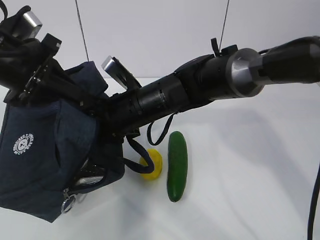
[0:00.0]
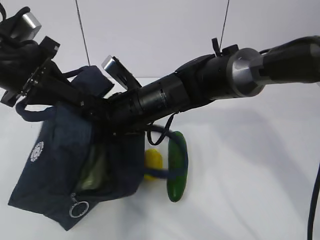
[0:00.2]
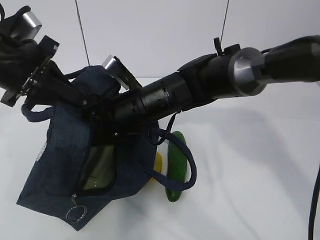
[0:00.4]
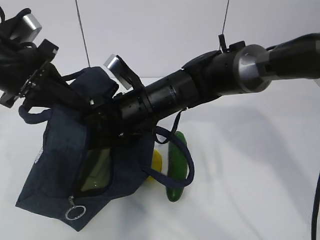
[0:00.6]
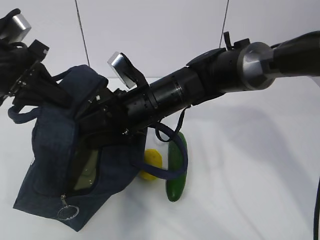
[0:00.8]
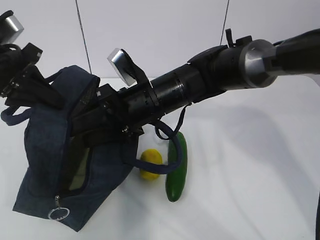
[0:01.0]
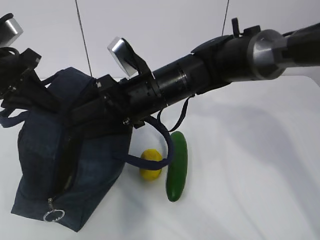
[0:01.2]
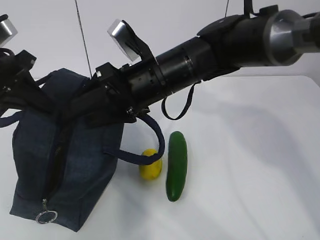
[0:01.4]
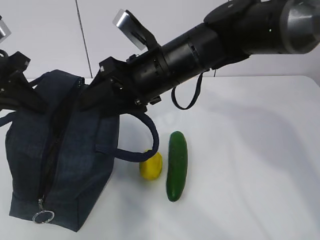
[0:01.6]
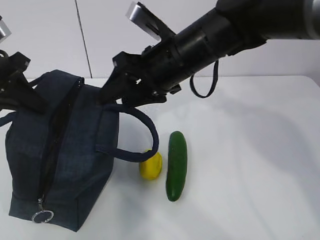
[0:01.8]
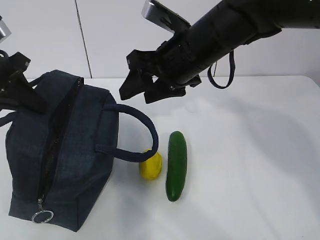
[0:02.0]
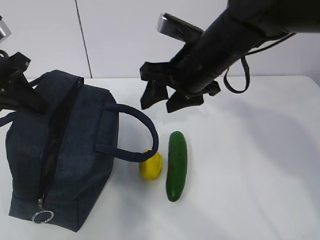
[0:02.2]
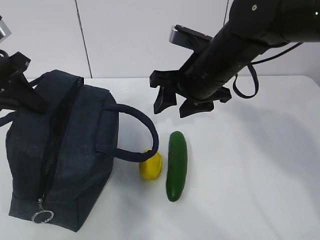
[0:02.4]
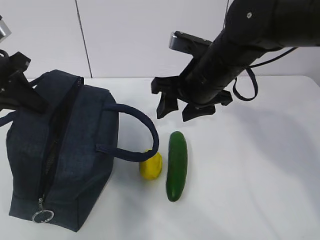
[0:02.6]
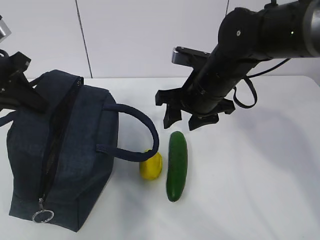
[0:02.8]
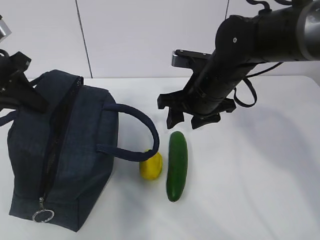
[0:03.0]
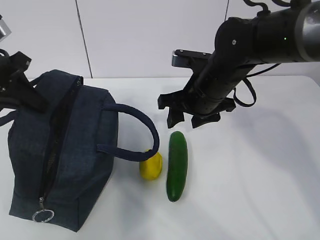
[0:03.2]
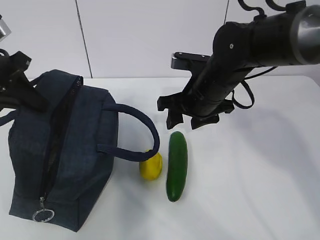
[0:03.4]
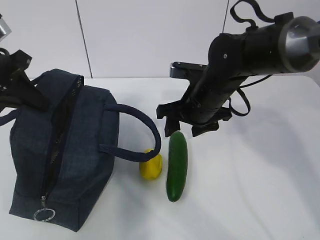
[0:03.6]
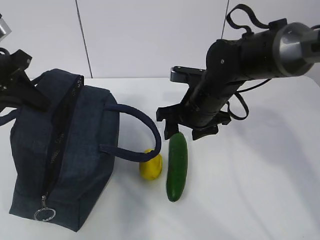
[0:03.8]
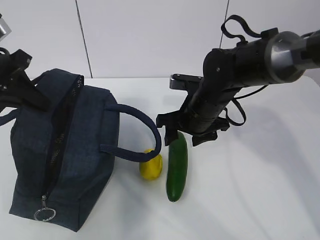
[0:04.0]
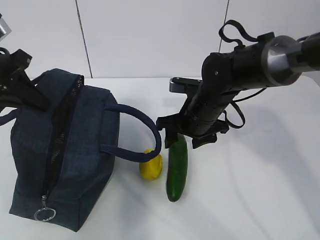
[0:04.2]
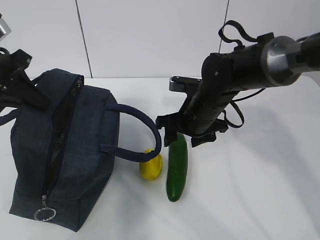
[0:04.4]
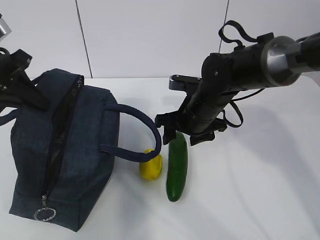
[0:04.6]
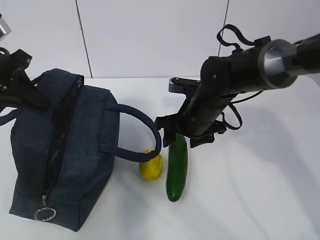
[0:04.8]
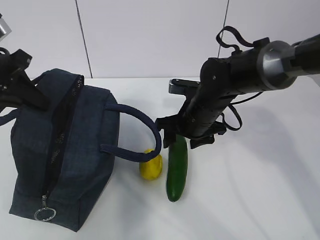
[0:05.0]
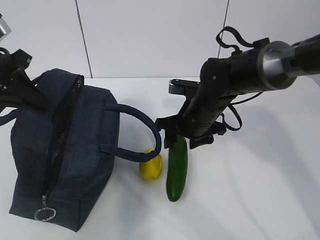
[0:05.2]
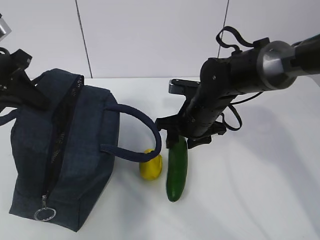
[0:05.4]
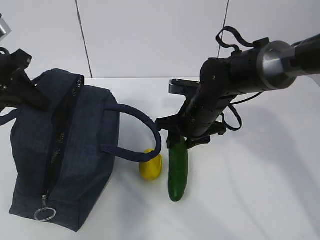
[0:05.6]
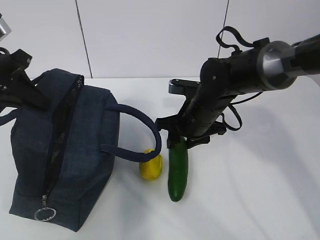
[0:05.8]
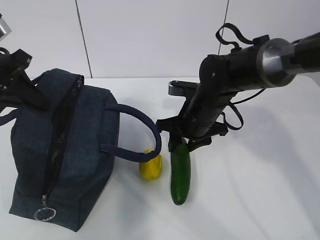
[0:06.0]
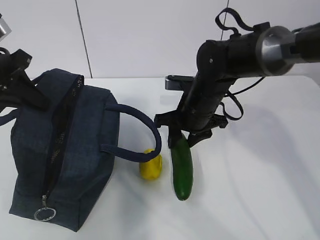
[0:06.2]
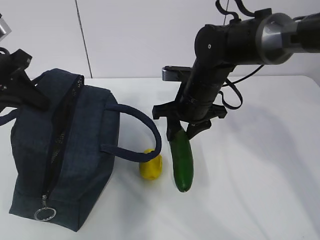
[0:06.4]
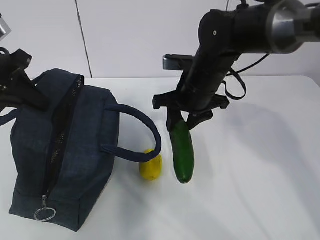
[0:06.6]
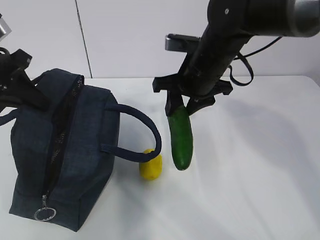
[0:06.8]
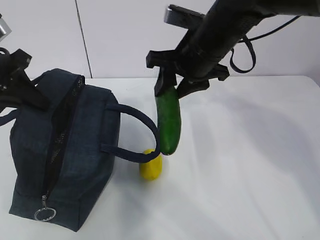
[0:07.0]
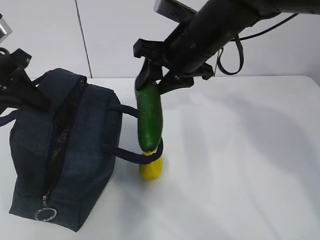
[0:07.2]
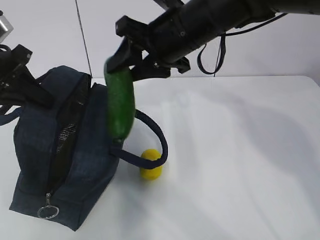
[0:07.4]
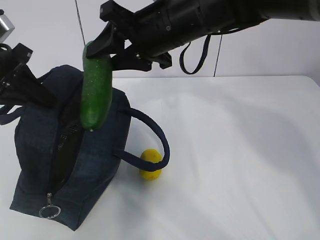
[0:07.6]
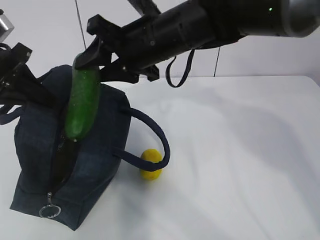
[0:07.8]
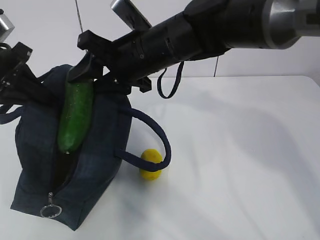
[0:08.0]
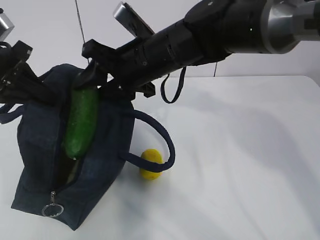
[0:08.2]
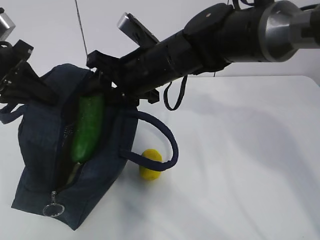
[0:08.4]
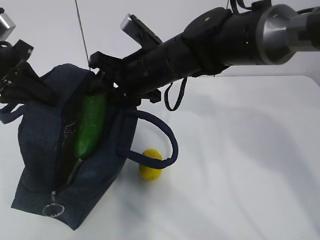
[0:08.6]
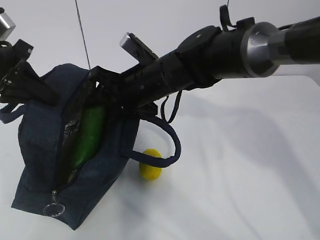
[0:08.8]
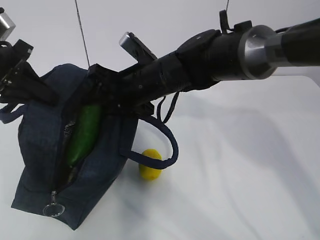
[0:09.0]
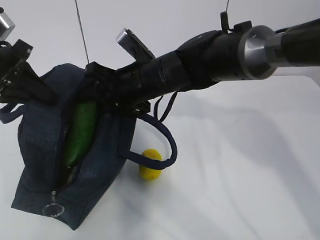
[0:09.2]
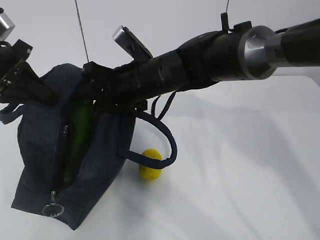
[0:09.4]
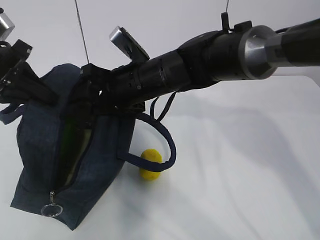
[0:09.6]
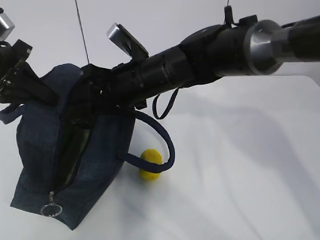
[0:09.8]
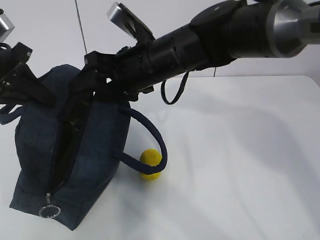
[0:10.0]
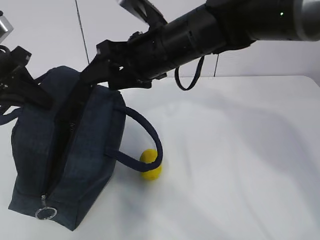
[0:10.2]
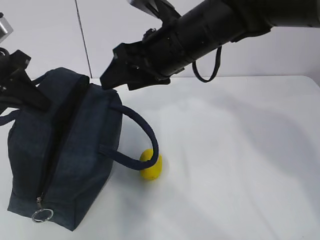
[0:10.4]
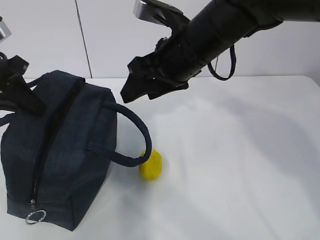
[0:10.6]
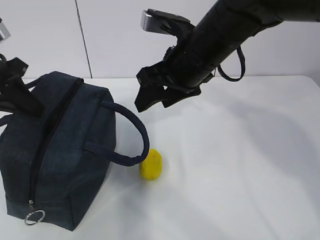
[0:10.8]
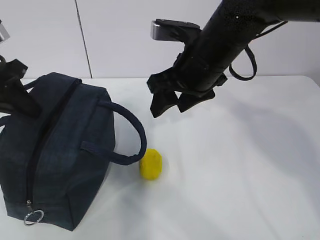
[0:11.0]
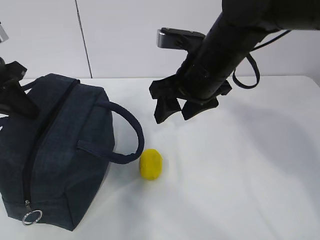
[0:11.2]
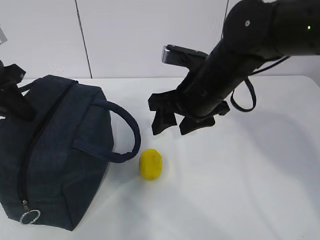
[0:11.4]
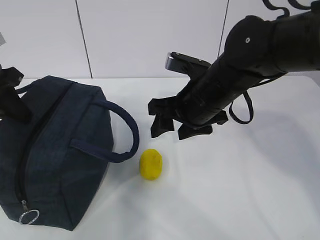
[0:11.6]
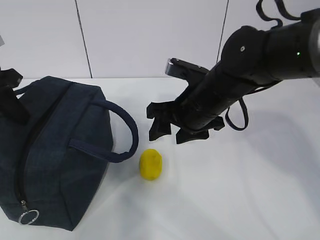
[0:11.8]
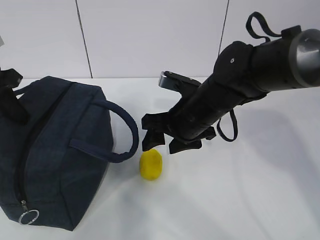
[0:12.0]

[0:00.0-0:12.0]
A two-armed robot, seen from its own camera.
Step, 0:01.0 to 0:04.2: Place it into the bag with your right hand.
Step, 0:04.4 to 0:08.0: Grab the lemon with your right hand.
0:00.0 to 0:01.6: The left gripper is displaced to the left by about 5 cm. The right gripper travels upward by about 5 cm.
0:01.6 to 0:03.0: The right gripper travels to the right and downward by approximately 10 cm.
0:03.0 to 0:04.4: The right gripper is displaced downward by approximately 5 cm.
0:04.4 to 0:06.0: The two grippers keep their place.
0:06.0 to 0:07.6: The right gripper is displaced upward by some 15 cm.
0:07.6 to 0:09.0: The right gripper goes about 10 cm downward.
0:09.0 to 0:10.4: The right gripper goes about 10 cm upward and to the right.
0:10.4 to 0:12.0: The right gripper is displaced downward by some 10 cm.

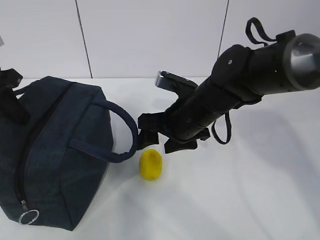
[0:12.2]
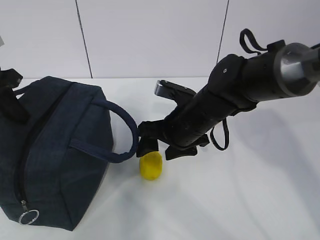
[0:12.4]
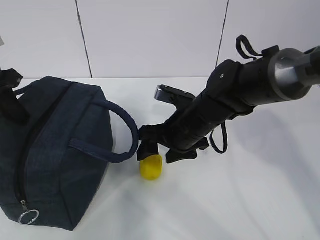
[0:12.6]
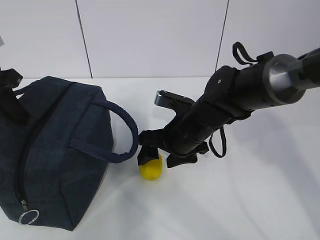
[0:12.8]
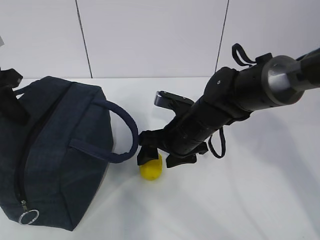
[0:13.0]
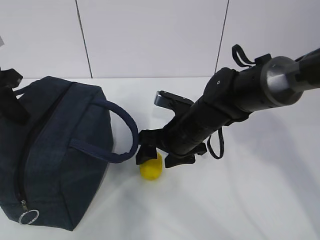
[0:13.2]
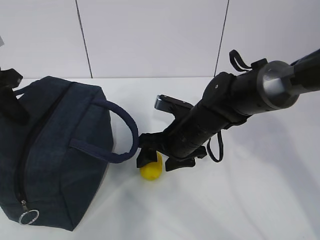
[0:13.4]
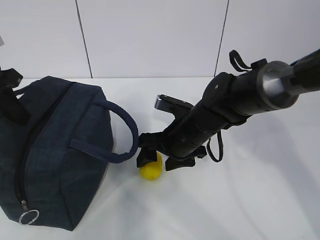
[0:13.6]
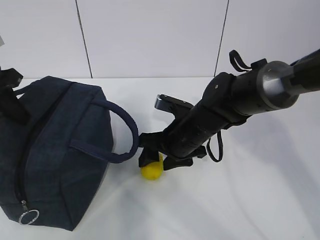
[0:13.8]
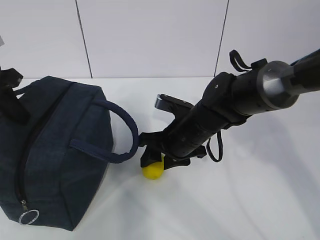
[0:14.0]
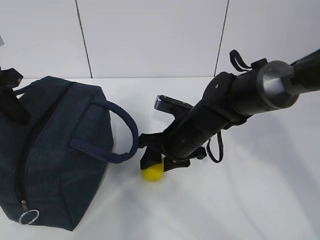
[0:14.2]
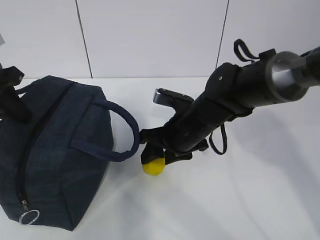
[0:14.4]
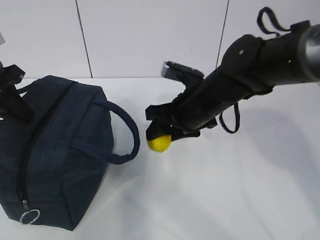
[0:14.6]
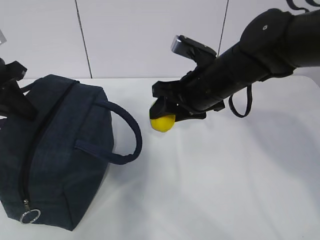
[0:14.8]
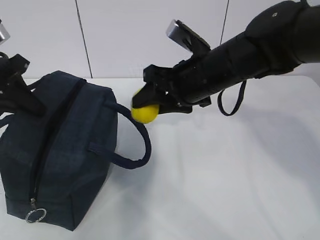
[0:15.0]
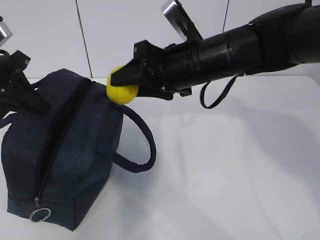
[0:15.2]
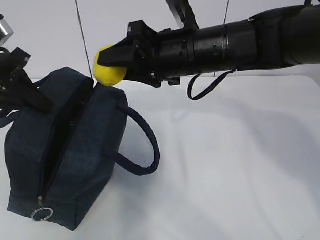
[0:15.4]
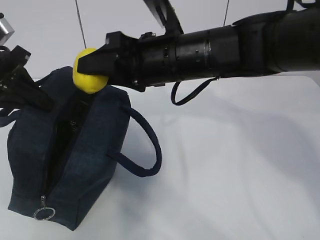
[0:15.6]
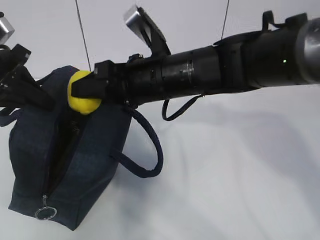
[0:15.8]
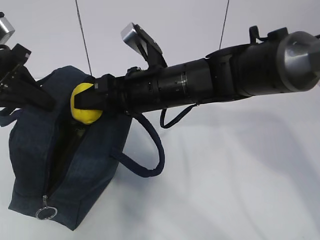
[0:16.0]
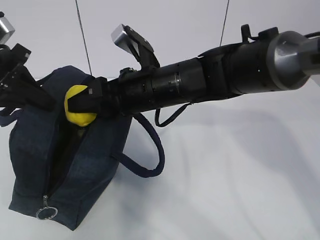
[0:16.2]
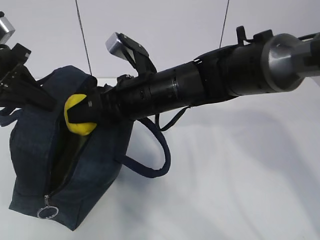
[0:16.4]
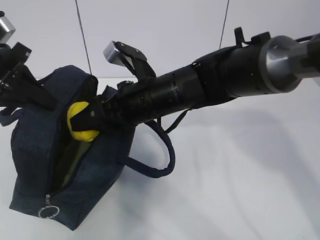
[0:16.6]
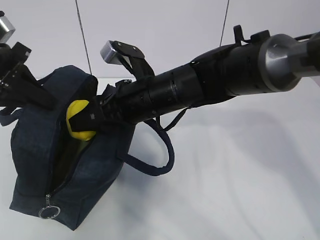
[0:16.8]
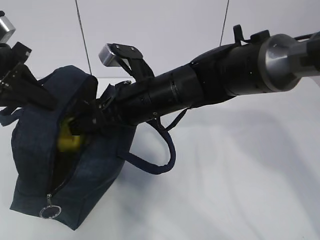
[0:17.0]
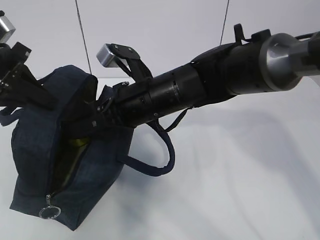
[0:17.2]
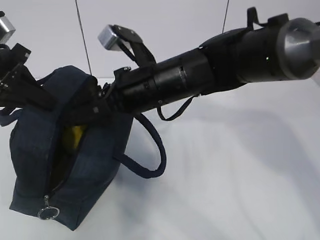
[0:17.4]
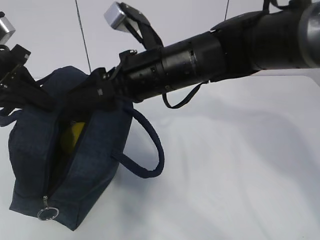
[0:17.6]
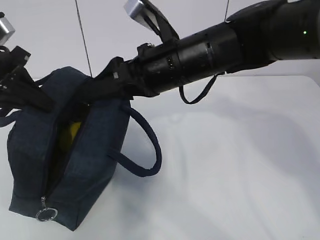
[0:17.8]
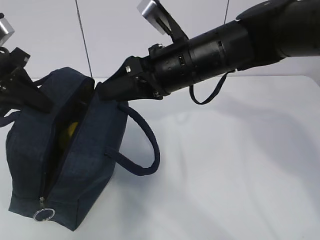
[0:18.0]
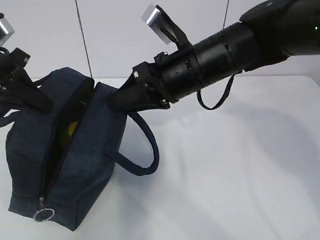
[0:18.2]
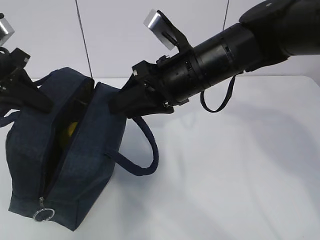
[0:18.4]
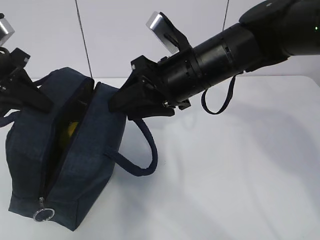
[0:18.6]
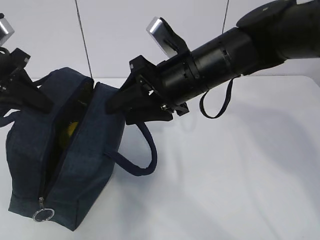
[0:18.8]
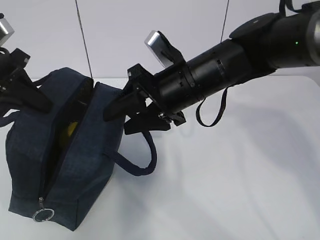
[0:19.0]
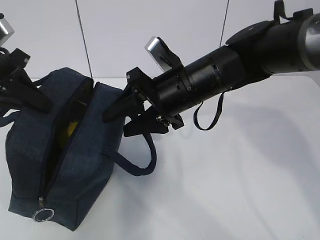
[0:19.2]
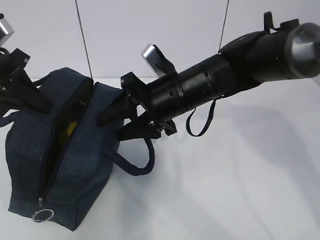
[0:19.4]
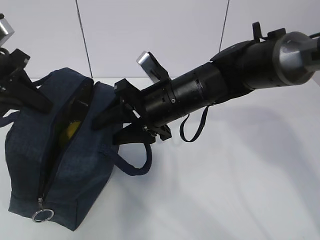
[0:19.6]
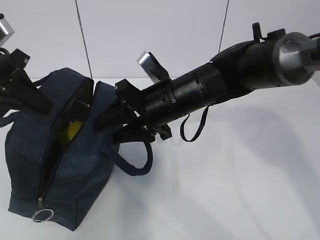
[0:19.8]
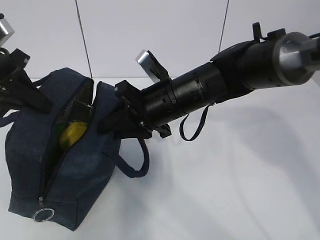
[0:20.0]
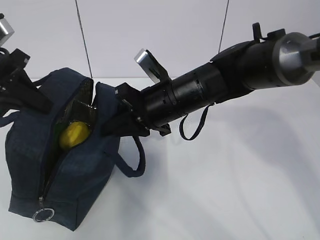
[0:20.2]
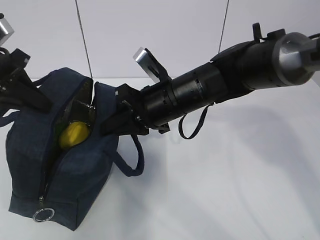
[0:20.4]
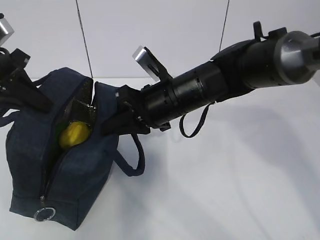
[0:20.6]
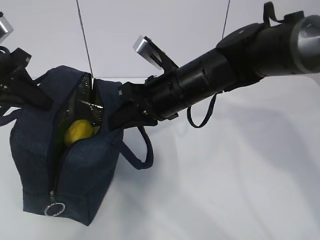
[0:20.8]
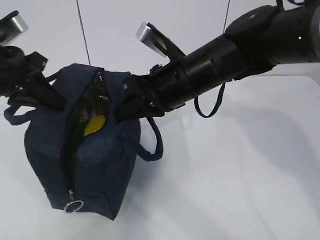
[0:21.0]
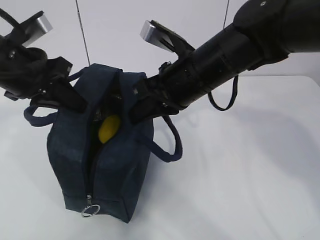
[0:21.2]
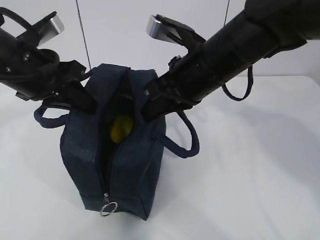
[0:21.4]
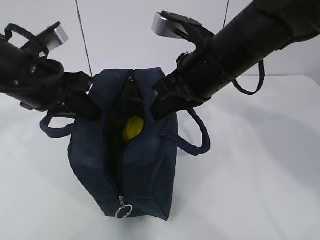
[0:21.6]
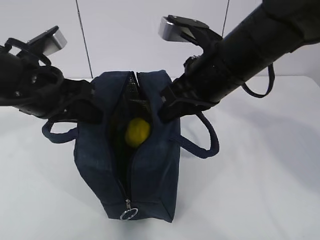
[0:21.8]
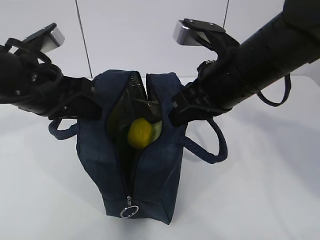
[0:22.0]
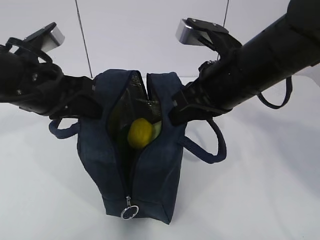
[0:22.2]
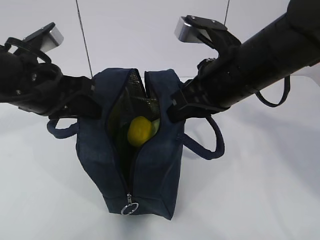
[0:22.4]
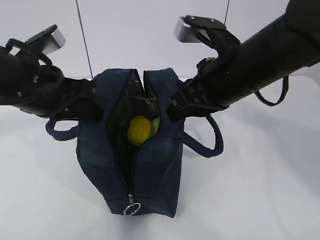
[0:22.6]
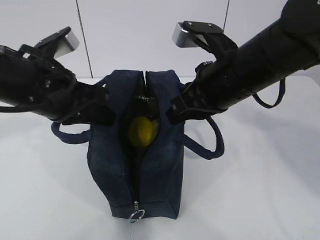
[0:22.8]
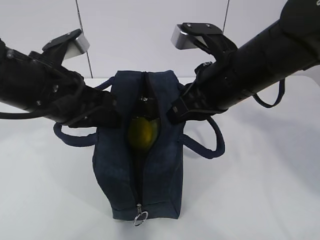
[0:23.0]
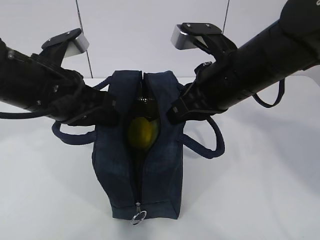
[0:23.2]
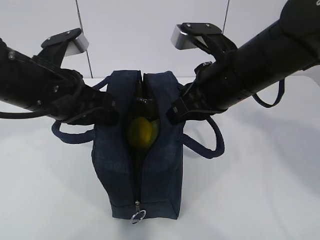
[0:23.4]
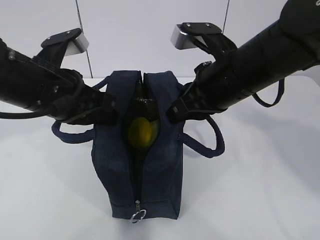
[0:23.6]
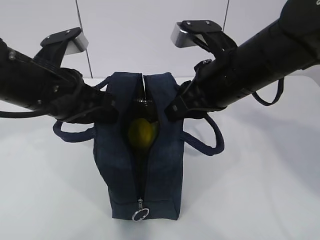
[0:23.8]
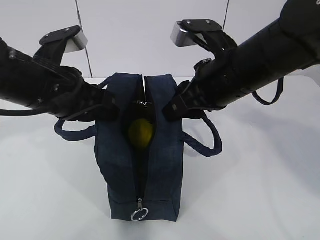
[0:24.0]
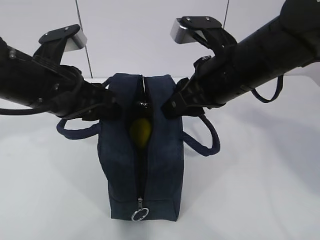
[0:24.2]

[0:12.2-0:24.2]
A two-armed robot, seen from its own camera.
0:12.2 to 0:13.8: The right gripper moves roughly 5 cm.
0:13.8 to 0:15.2: The right gripper heads upward, covering some 15 cm.
0:15.2 to 0:16.6: The right gripper goes approximately 10 cm to the left and downward.
0:16.6 to 0:18.2: The right gripper goes roughly 10 cm to the right and upward.
0:18.2 to 0:19.8: The right gripper travels downward by about 5 cm.
0:19.8 to 0:21.2: The left gripper moves to the right, approximately 5 cm; the right gripper travels upward by some 5 cm, and closes up.
0:21.2 to 0:22.6: The right gripper moves approximately 5 cm.
0:22.6 to 0:24.2: The left gripper opens. The right gripper opens.
